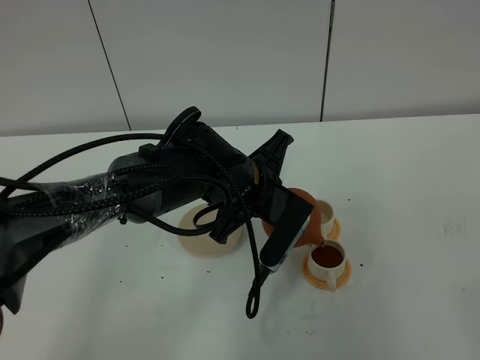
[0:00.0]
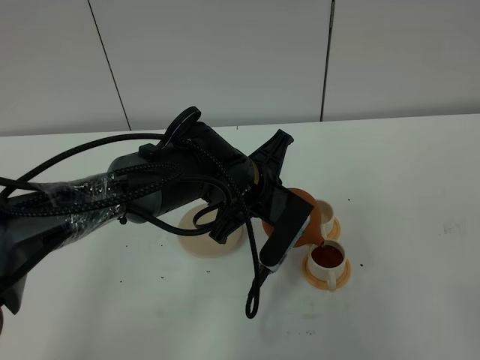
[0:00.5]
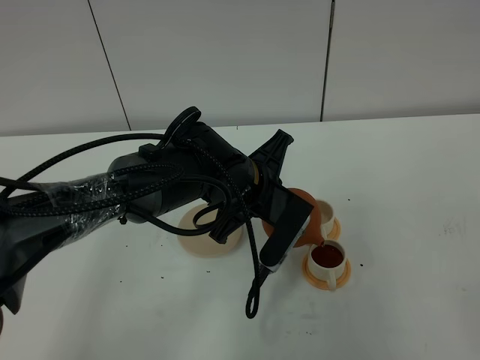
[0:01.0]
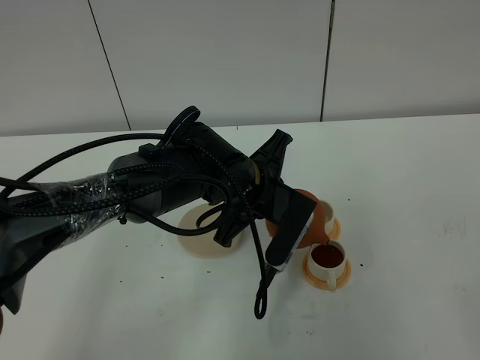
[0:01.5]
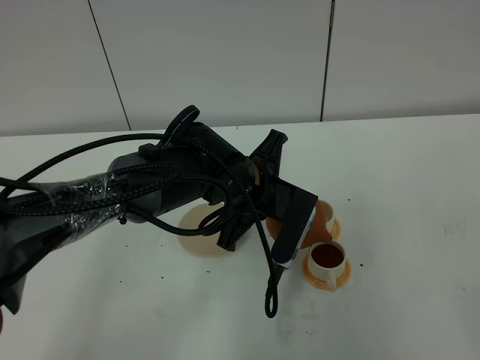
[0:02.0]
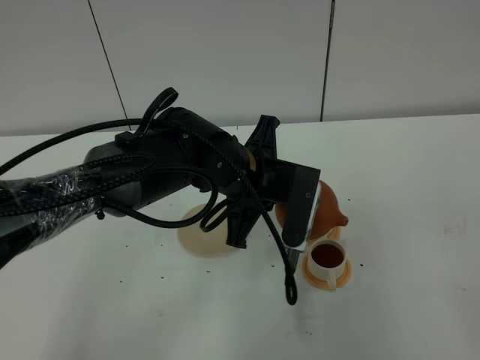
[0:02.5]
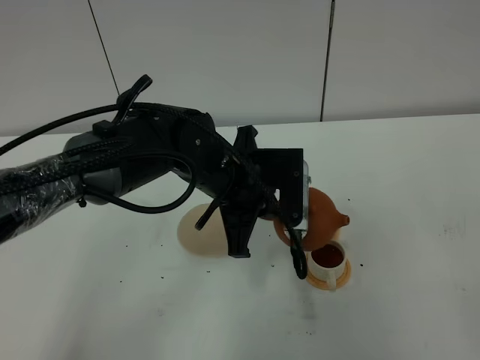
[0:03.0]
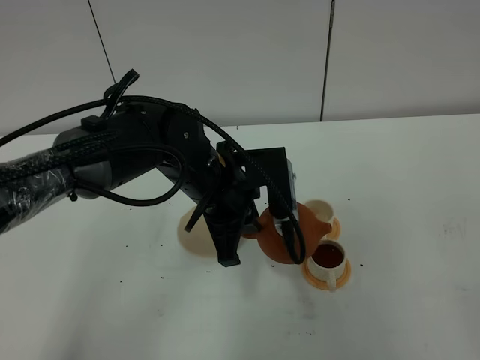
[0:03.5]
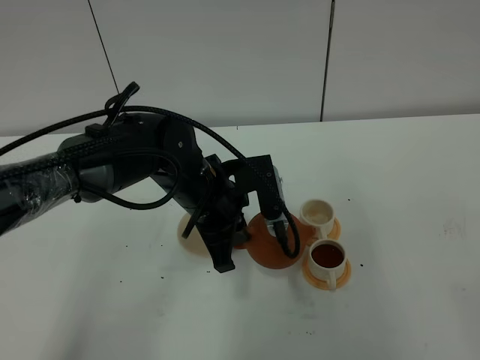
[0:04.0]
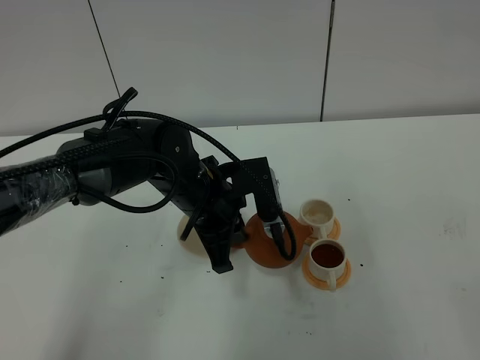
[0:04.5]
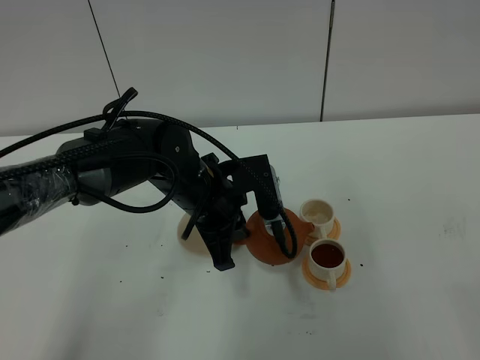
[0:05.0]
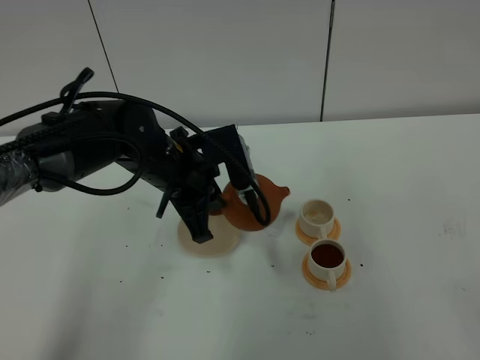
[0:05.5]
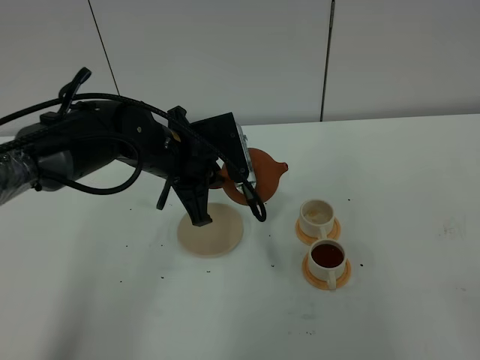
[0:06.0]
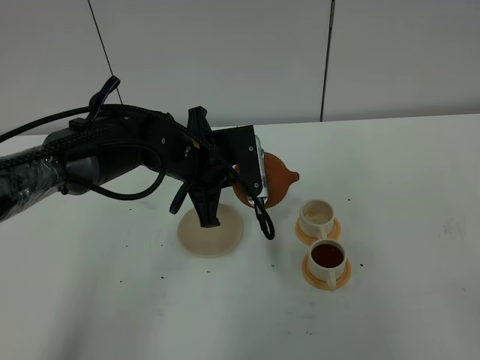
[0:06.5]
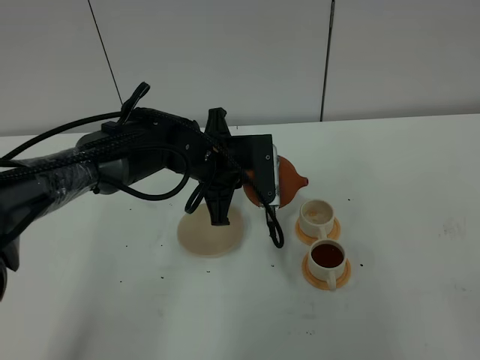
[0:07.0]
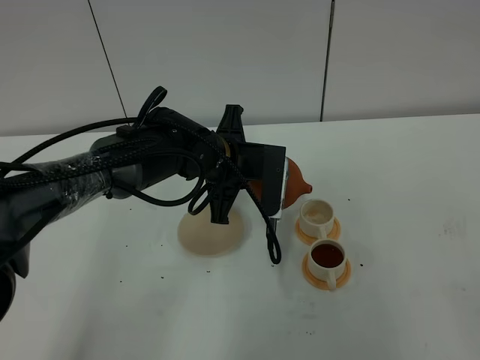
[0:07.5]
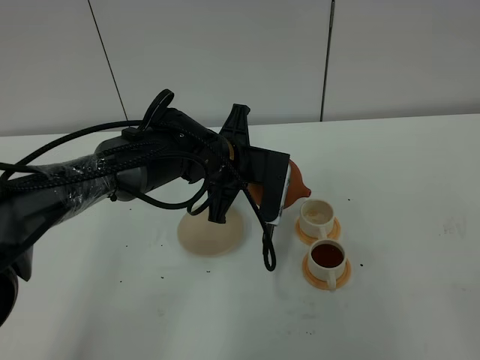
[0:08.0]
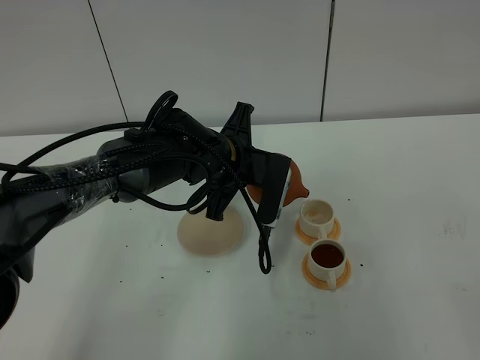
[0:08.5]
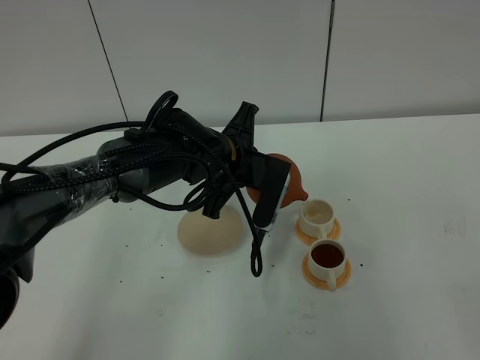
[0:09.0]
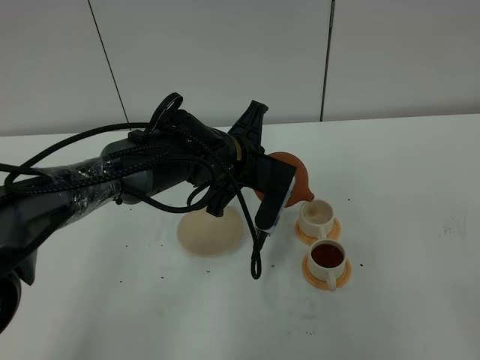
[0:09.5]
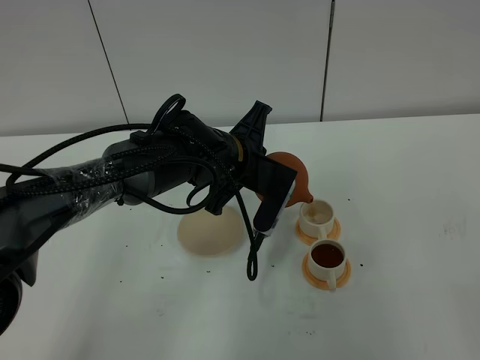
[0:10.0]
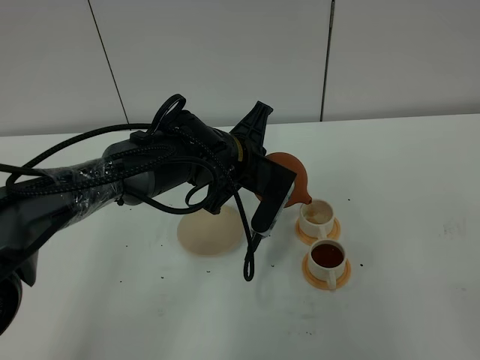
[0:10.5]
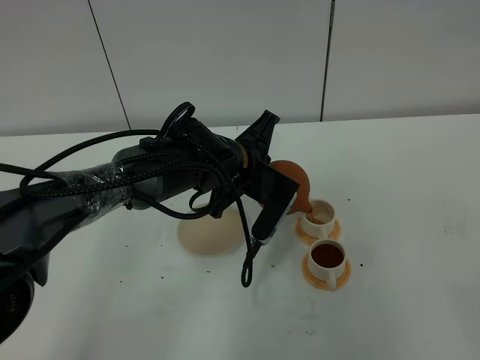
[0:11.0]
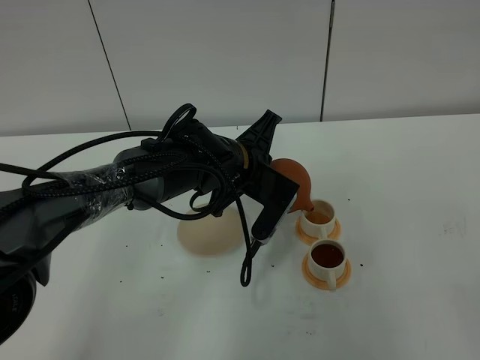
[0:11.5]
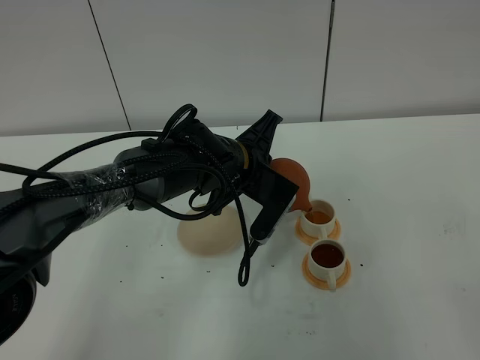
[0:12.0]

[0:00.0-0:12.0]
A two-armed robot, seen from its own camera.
Task of the whole recording: grasp the brown teapot and pour the tea into the two white teacups one by one, put the brown teapot back in its original place.
0:00.0 to 0:02.0: The grippers make only small movements.
0:02.0 to 0:04.0: The left gripper moves to the left, some 5 cm.
0:04.0 to 0:06.0: The left gripper ends up roughly 5 cm from where it was.
0:06.0 to 0:08.0: The left gripper heads to the right, covering roughly 5 cm.
0:08.0 to 0:10.0: The grippers make only small movements.
0:10.0 to 0:12.0: The grippers make only small movements.

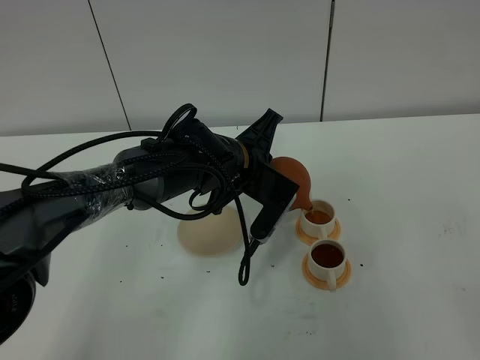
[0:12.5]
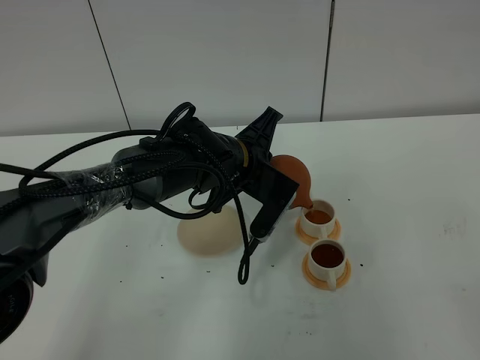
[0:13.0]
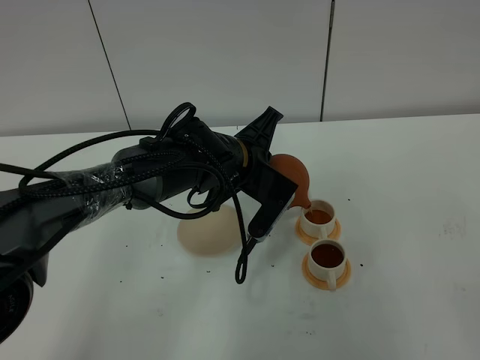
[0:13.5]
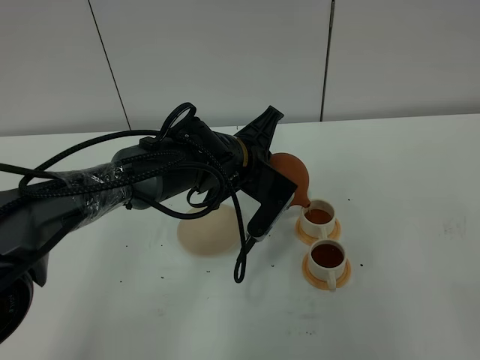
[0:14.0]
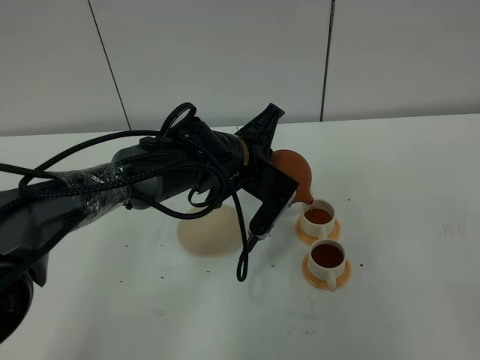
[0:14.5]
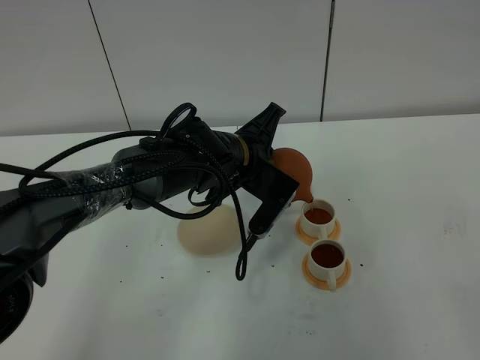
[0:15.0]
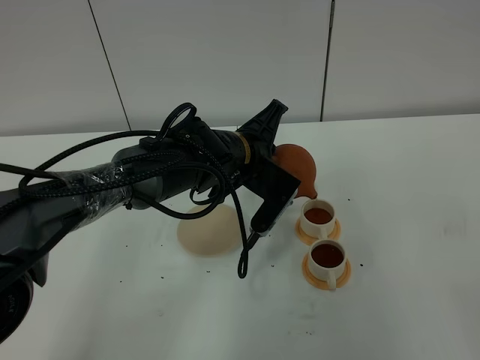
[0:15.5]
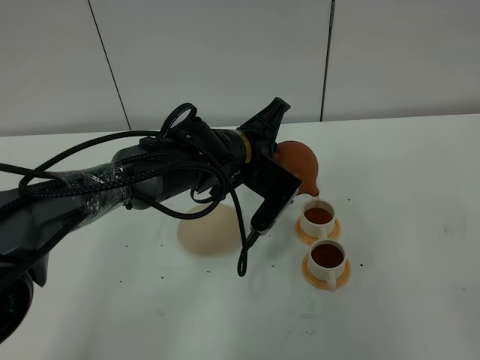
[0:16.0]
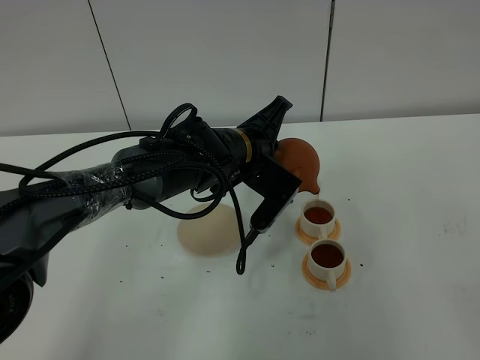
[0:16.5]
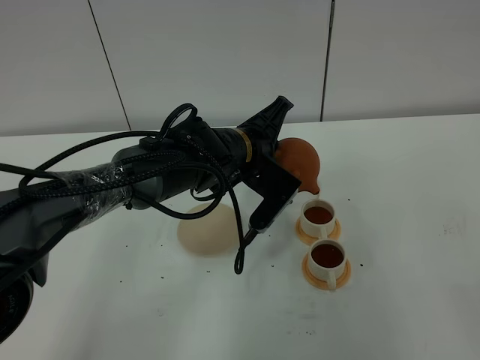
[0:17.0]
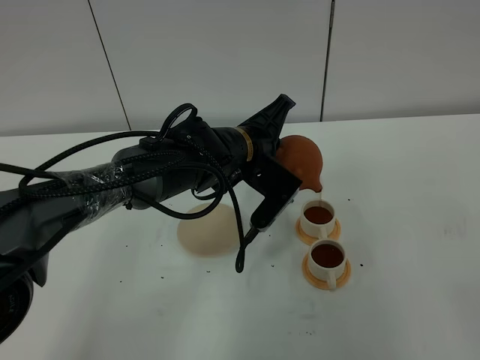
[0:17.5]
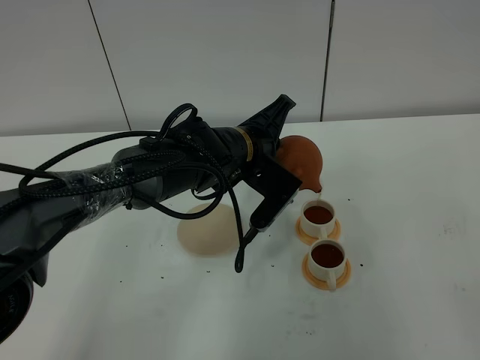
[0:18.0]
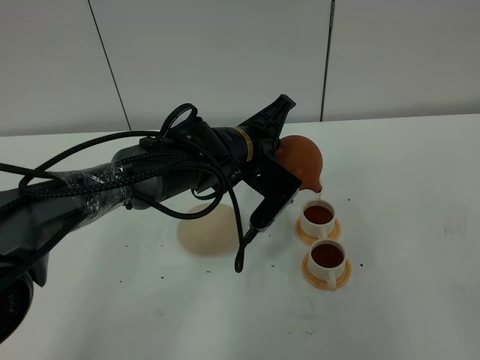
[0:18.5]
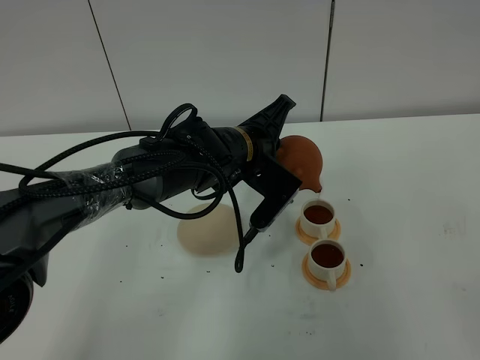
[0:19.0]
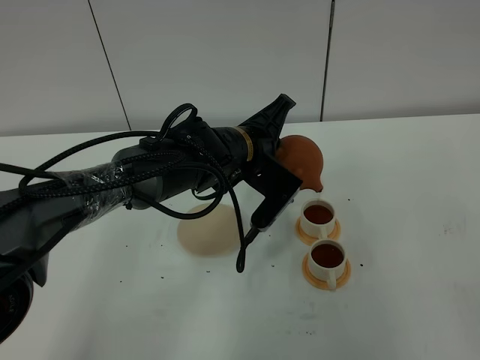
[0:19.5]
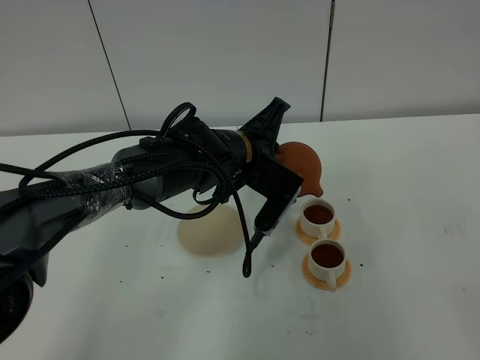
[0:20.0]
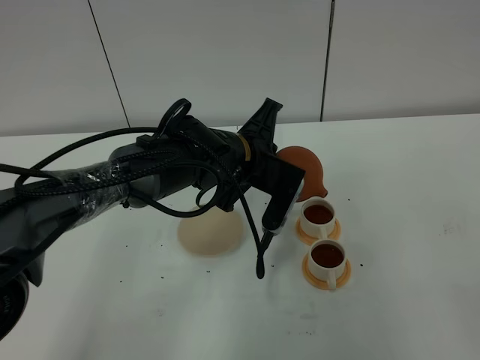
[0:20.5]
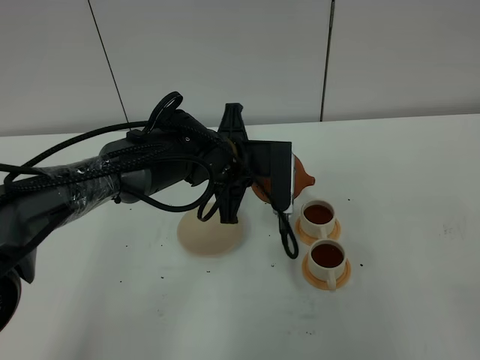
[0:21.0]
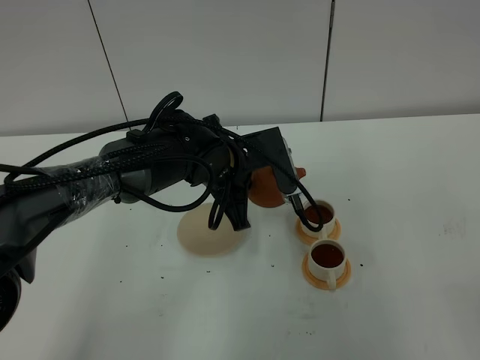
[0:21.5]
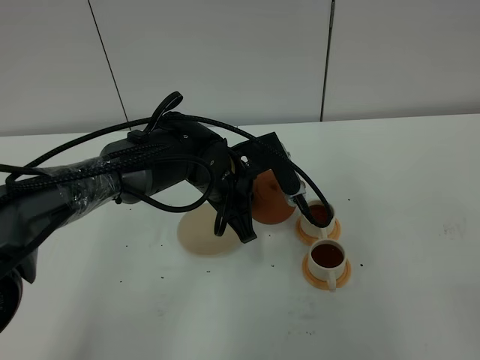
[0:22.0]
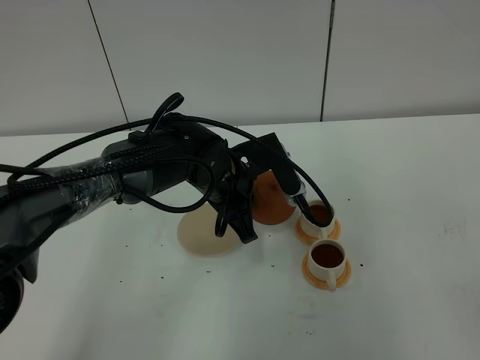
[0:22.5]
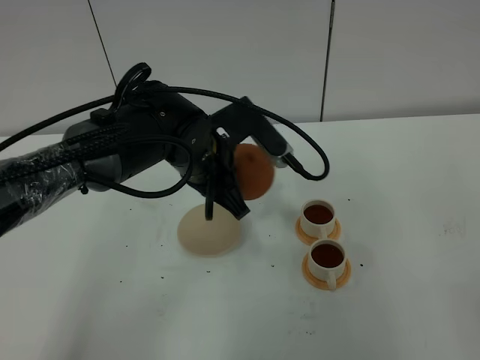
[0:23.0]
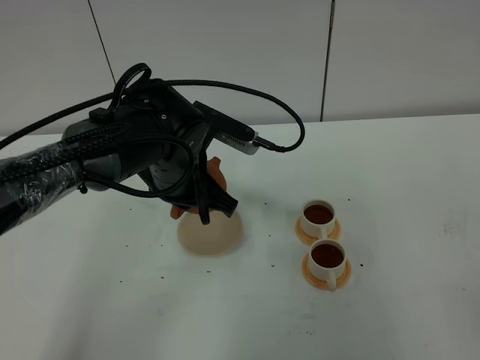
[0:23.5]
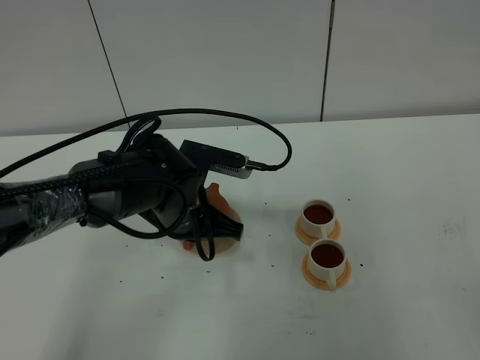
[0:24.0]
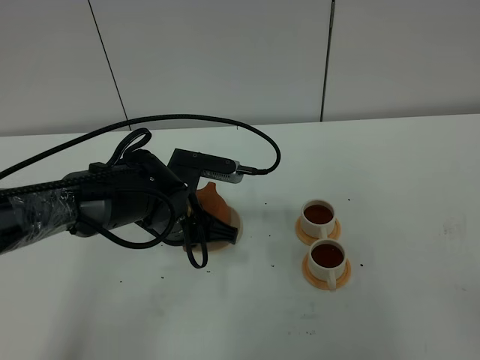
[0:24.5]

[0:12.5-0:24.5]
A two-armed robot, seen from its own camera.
Task of the whole recording: grasp the brown teapot and pour the tea into the two white teacups one by one, put the brown teapot back in its original place.
Step, 0:12.5 to 0:21.5: Pour tea into the teacup with the left gripper.
0:12.5 to 0:14.5: Both grippers stay about where they are.
0:14.5 to 0:16.5: The grippers make only small movements.
0:16.5 to 0:18.5: Both grippers stay put.
0:18.5 to 0:20.5: The grippers make only small movements.
0:22.5 to 0:24.5: The left gripper moves to the left, approximately 5 cm, and reaches roughly 5 cm upward, then returns.

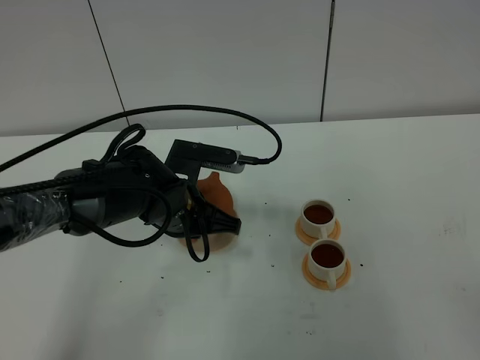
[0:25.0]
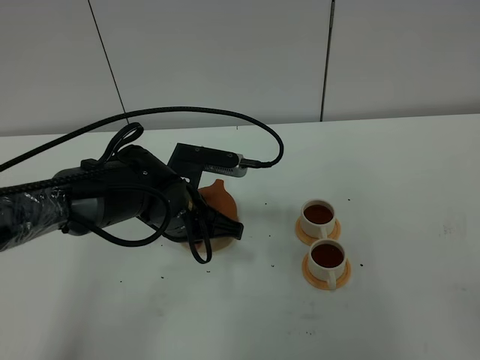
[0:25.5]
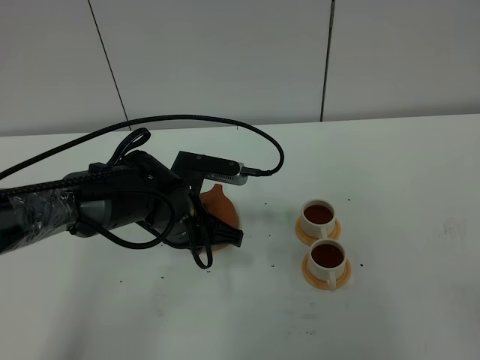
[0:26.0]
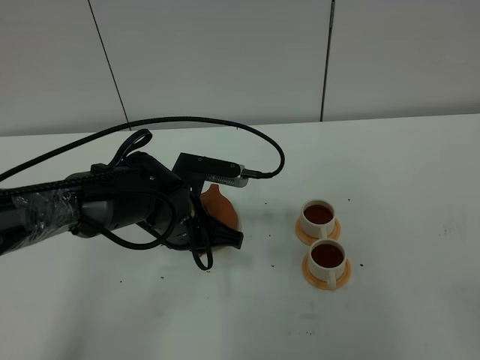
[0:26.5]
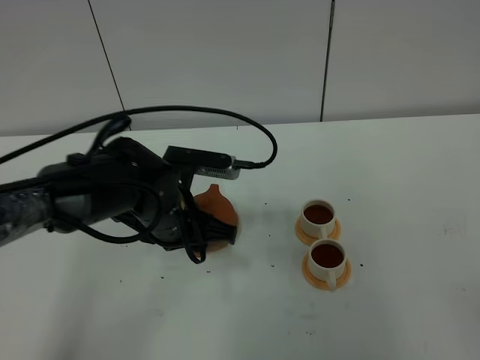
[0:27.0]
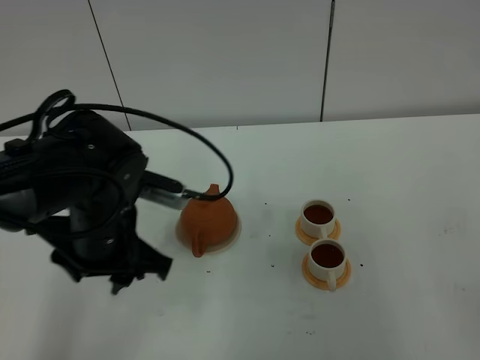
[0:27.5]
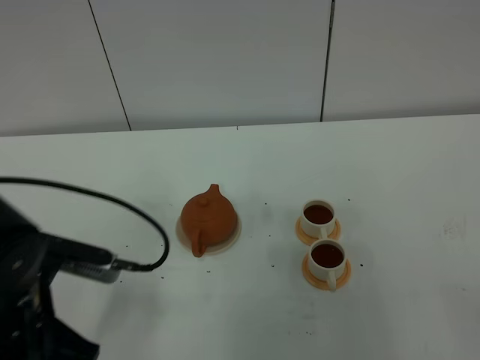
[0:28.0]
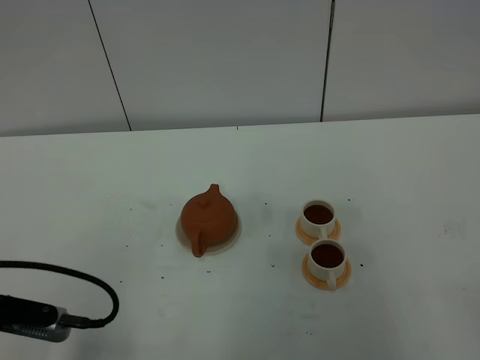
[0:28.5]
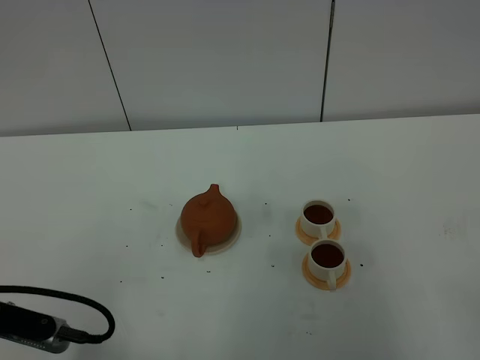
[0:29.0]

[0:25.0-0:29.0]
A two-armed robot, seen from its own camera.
Task of the whole recording: grasp the brown teapot and pour the tea into the two white teacups one by one, put the brown teapot back in its original place.
0:25.0 to 0:27.0: The left gripper opens up.
0:27.0 to 0:29.0: The left gripper shifts about 25 cm backward and to the left.
